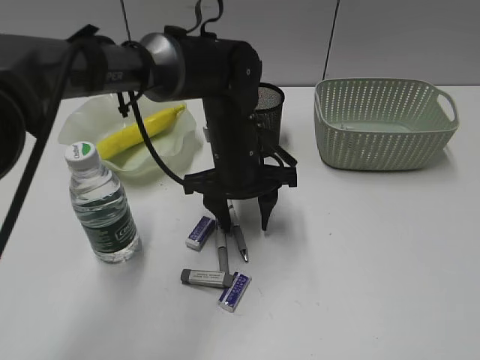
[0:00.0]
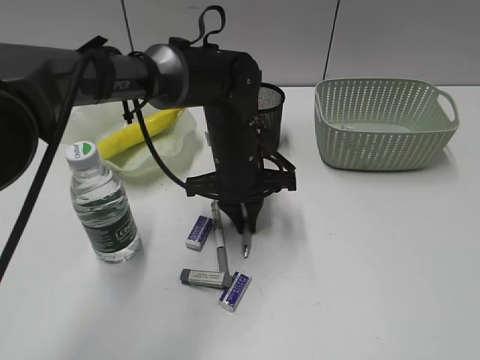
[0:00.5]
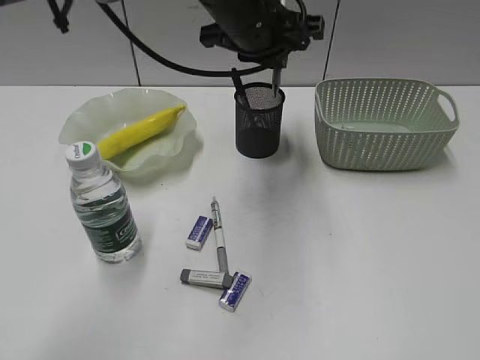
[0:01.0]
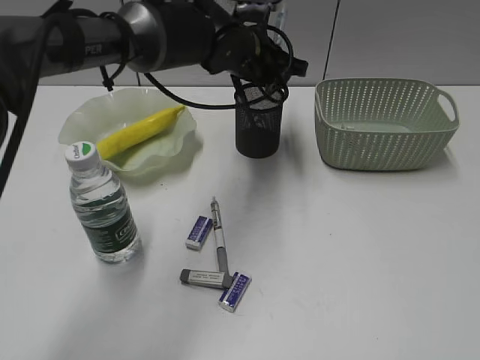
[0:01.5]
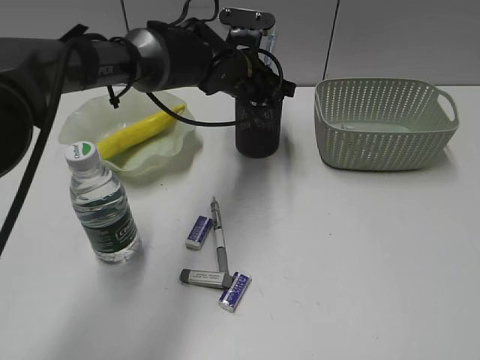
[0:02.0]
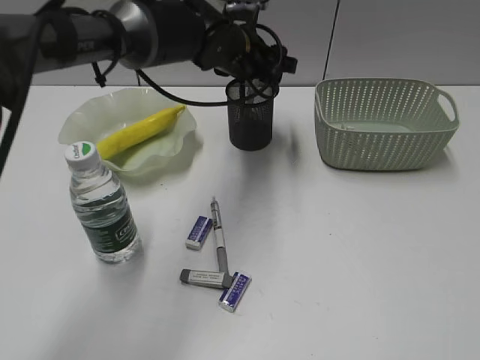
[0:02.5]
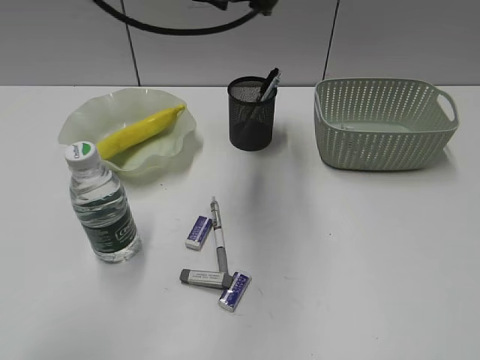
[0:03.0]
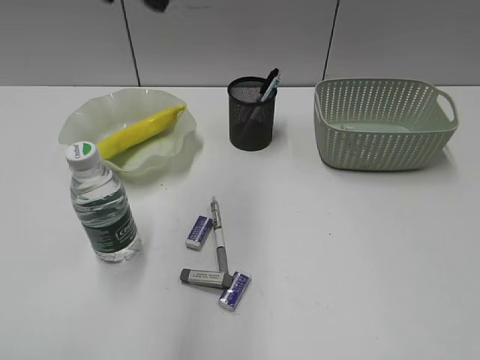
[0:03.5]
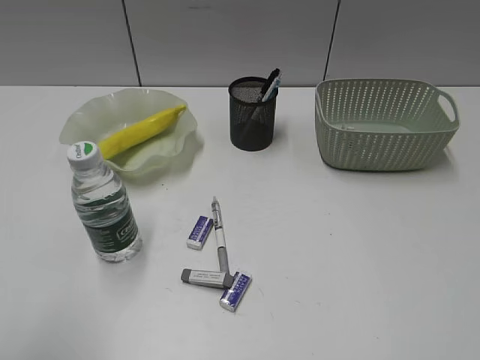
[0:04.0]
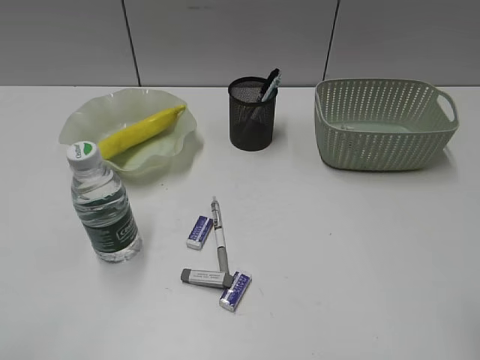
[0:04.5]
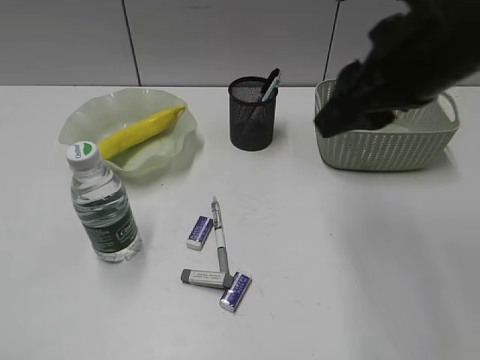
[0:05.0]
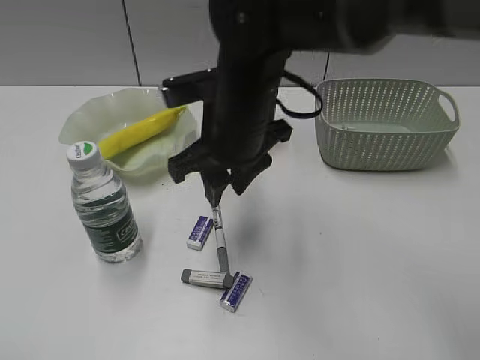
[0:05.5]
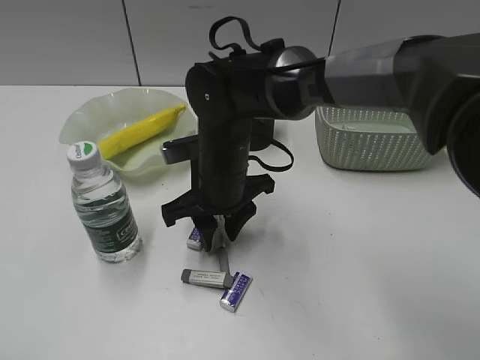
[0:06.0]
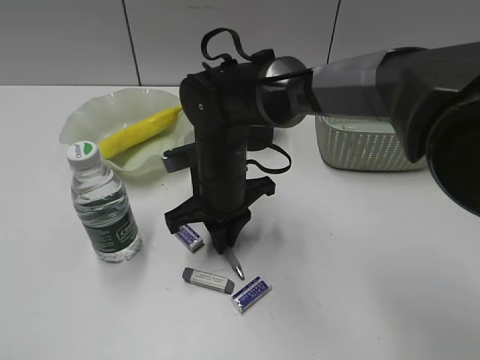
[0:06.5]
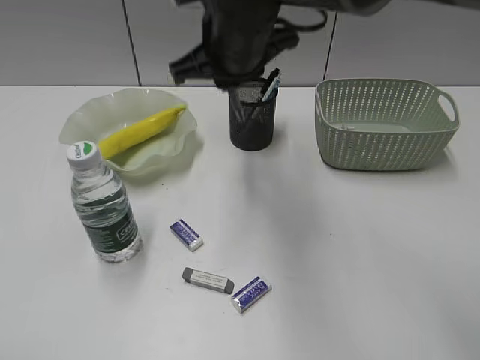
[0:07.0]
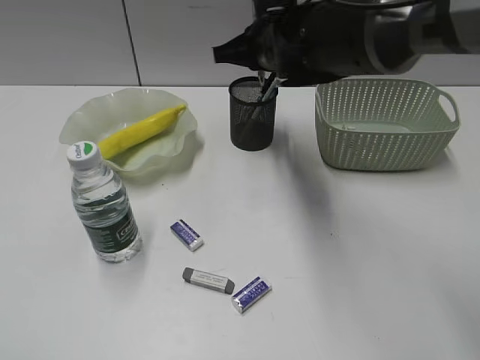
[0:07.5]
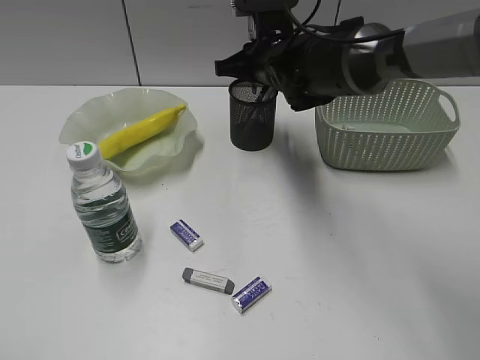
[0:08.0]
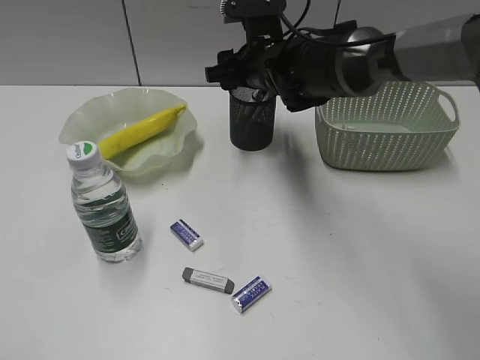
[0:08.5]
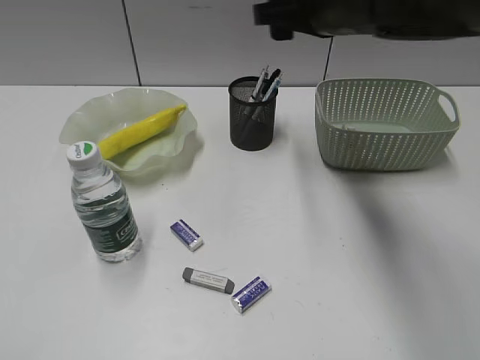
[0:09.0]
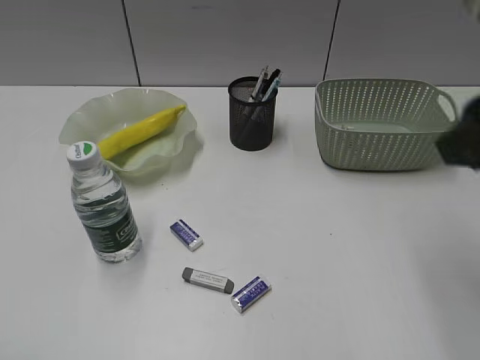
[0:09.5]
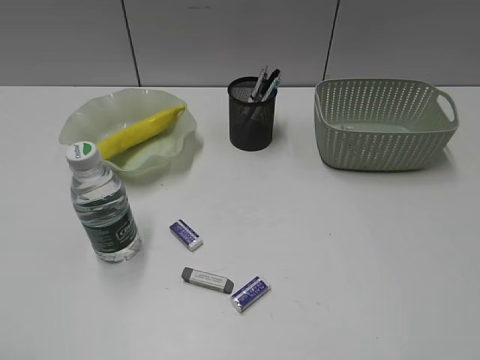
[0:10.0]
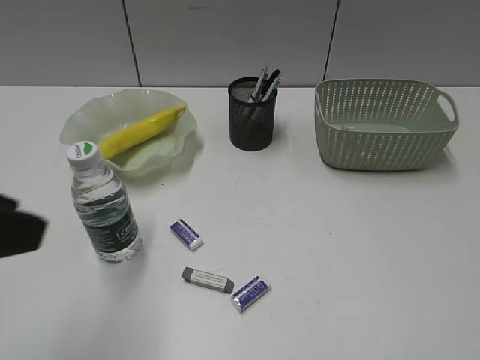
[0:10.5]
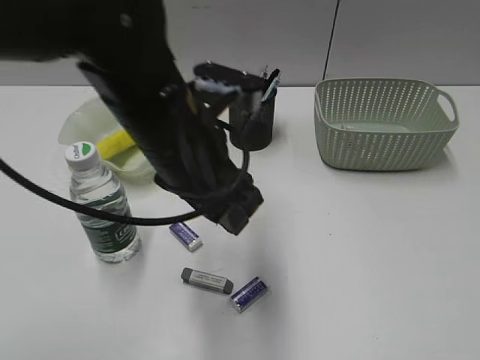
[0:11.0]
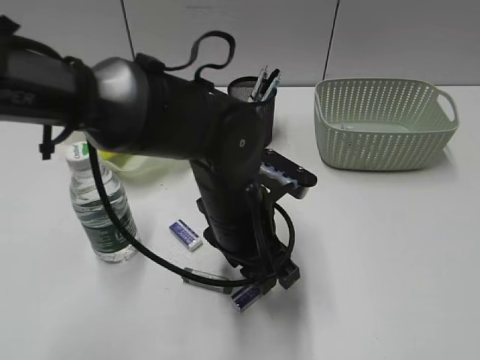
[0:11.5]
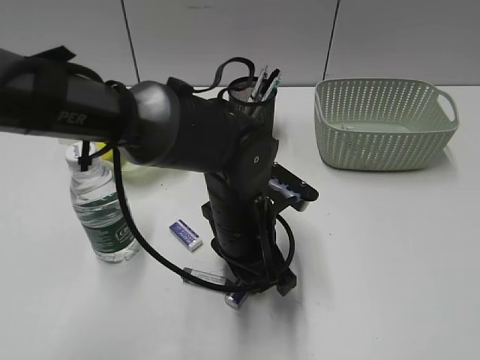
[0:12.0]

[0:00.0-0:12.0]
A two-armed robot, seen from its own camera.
Step, 0:00.5 to 0:02.5: Place the blue pen in pen holder with left gripper.
Step, 0:03.0 to 0:06.0: Grasp the gray pen with right gripper.
Step, 0:06.5 to 0:08.0: Place the gray pen in pen holder with right gripper.
0:00.0 to 0:02.0: The left gripper travels forward by some 10 cm, moves approximately 15 cm upward and comes back, and closes its fingers.
0:02.0 to 0:04.0: The left gripper shifts roughly 50 cm backward and to the left, and opens up.
0:04.0 to 0:06.0: The left gripper shifts approximately 10 cm backward and to the left, while the right gripper goes approximately 50 cm to the left, forward and downward.
0:06.0 to 0:08.0: The right gripper travels forward, to the right and upward by roughly 15 cm, and closes up.
0:08.0 to 0:10.0: The right gripper moves backward and to the right, some 50 cm, and opens its fingers.
0:10.0 to 0:12.0: The left gripper is displaced to the right, forward and downward by some 50 cm.

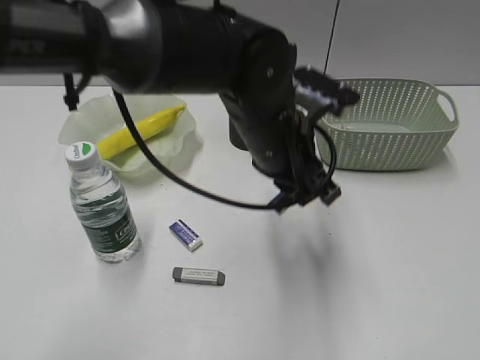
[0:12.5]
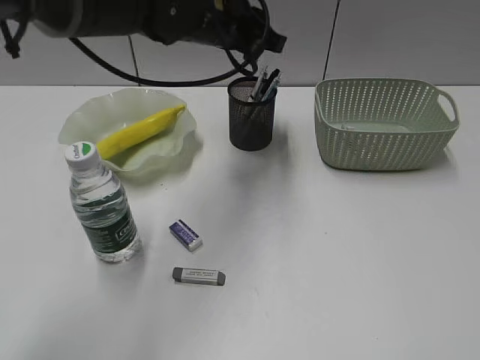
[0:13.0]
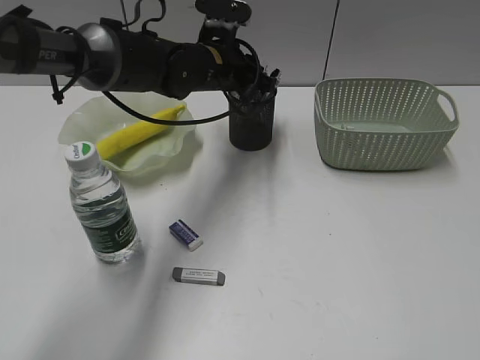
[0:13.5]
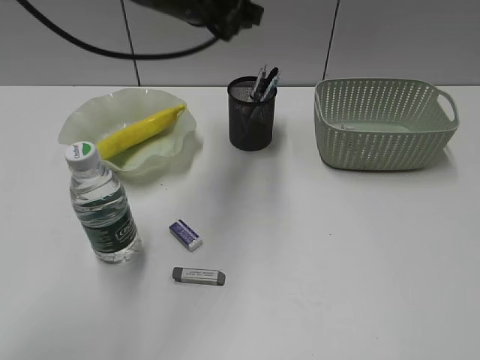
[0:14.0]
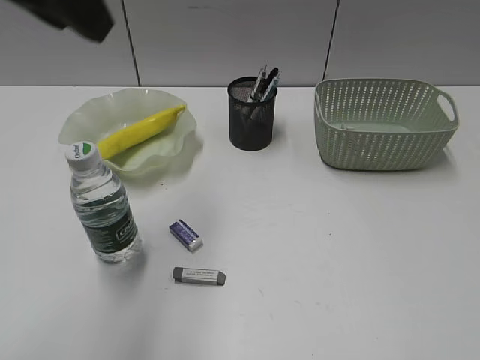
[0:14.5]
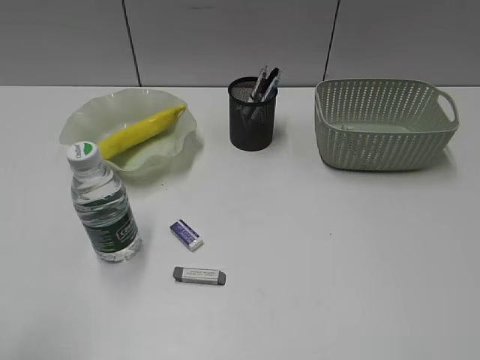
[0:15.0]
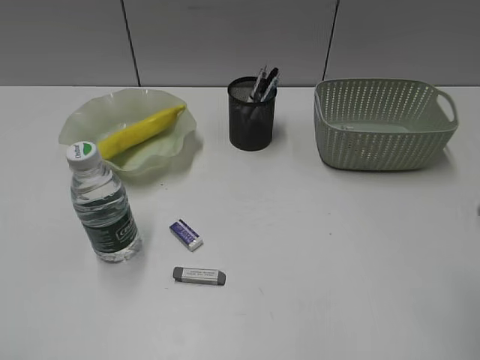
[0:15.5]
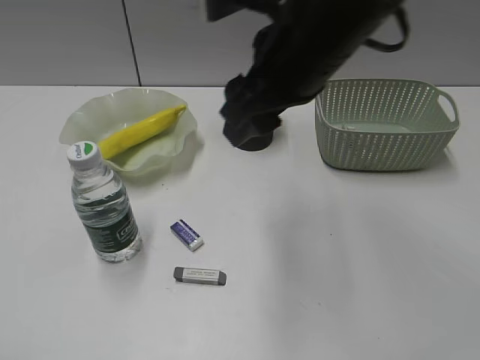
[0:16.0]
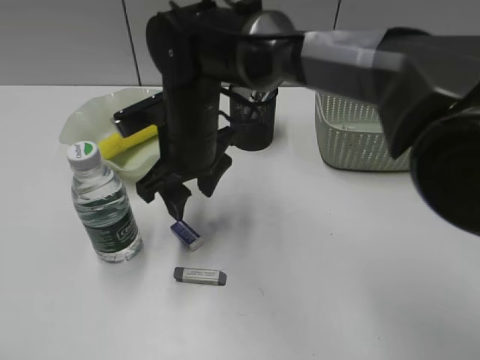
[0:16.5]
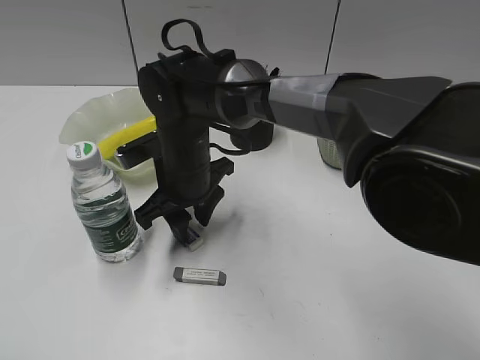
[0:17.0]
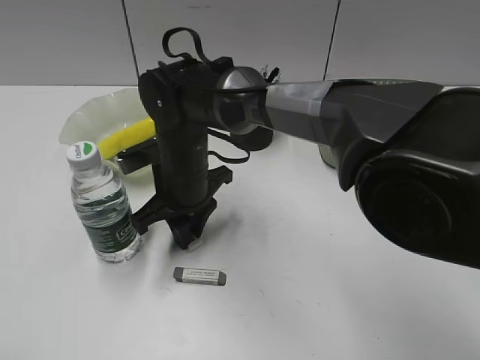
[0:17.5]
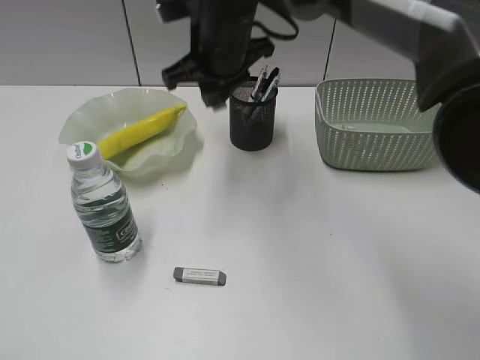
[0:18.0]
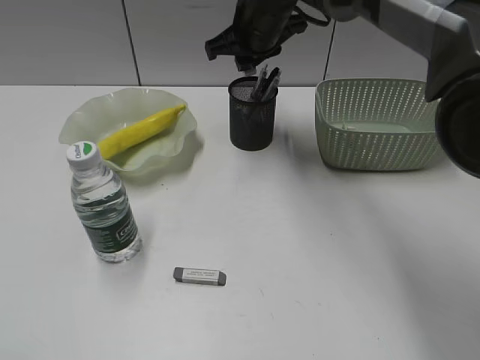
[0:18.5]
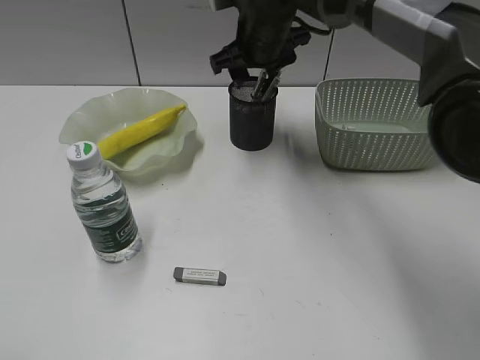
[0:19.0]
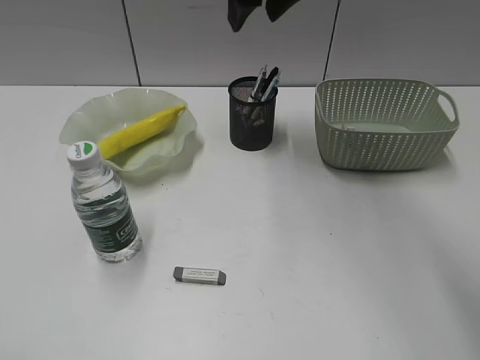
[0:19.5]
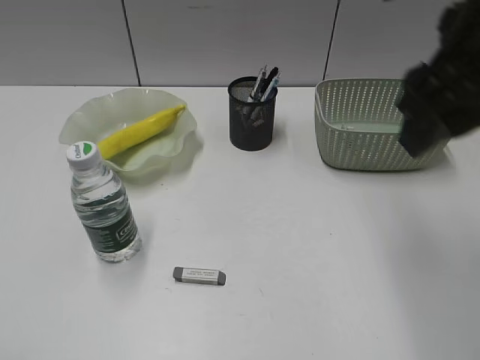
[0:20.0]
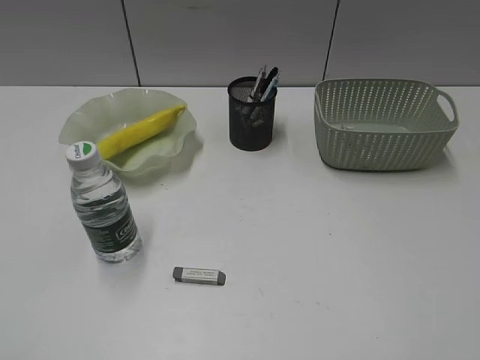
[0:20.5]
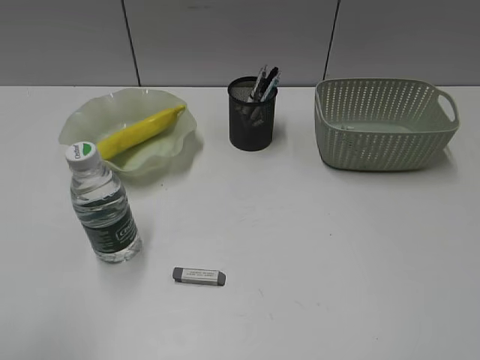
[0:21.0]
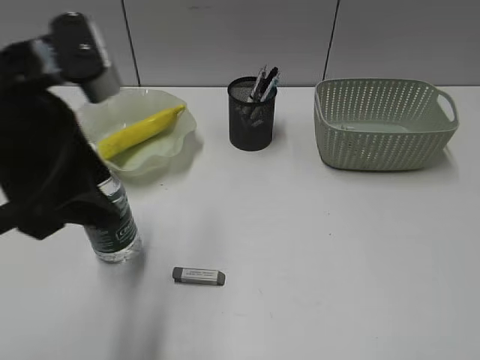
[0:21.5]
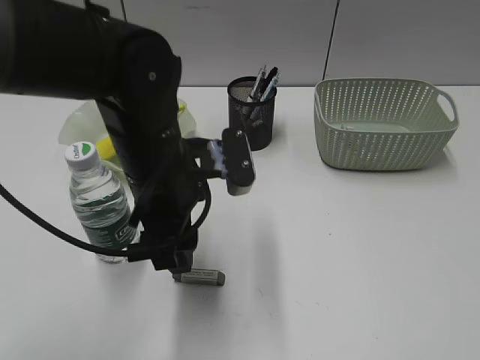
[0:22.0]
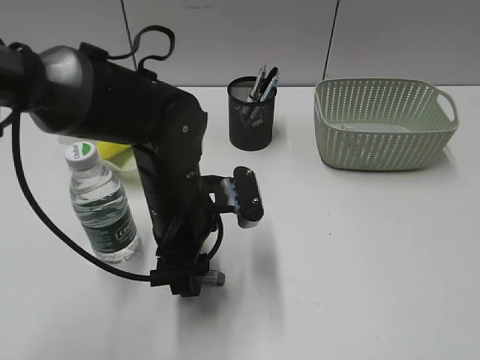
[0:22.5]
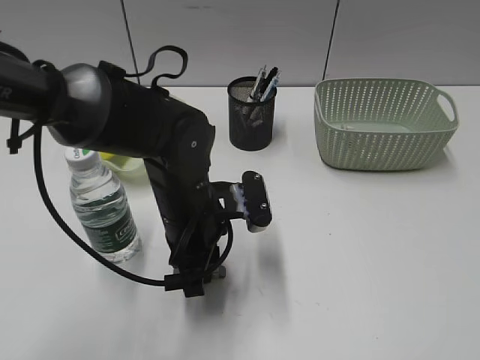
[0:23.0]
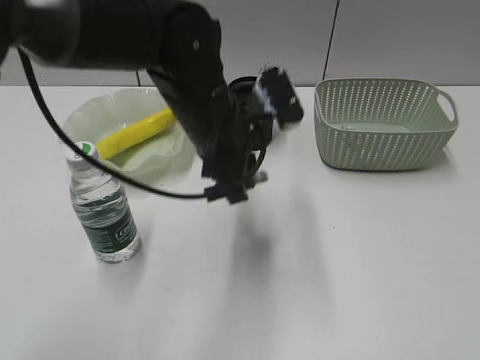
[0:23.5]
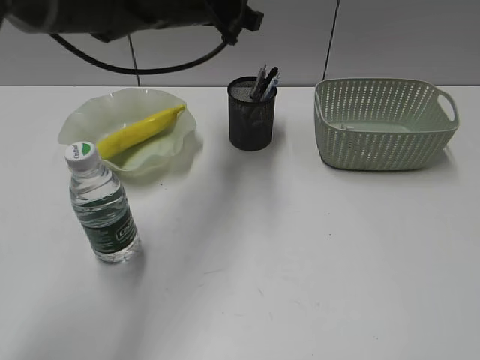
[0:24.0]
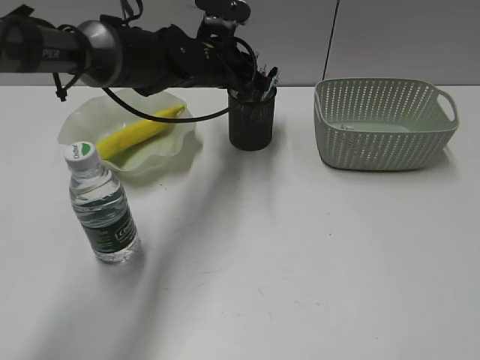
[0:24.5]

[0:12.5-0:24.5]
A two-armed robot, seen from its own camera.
Step, 0:12.5 to 0:13.5: Place the eraser in pen holder with left gripper.
Step, 0:14.0 to 0:17.5: Grasp the eraser with right gripper.
Step, 0:18.0 to 0:19.0: Place the eraser in pen holder with right gripper.
Step, 0:19.5 to 0:23.0: Grasp the eraser with left gripper.
0:12.5 to 0:14.5: The left gripper goes up and down, approximately 20 cm each way, reversing 2 times, and opens.
0:14.5 to 0:16.5: The right gripper moves to the left and forward, about 50 cm, while the left gripper heads backward, to the left and downward, covering about 35 cm.
0:16.5 to 0:18.5: The right gripper goes roughly 15 cm forward, to the right and upward, and closes its fingers.
0:18.5 to 0:20.5: The right gripper shifts about 50 cm backward and to the right, and opens up.
0:20.5 to 0:22.5: The right gripper shifts roughly 5 cm backward; the left gripper moves forward, to the right and downward, roughly 40 cm.
0:22.5 to 0:24.5: The left gripper goes some 20 cm forward, and closes.

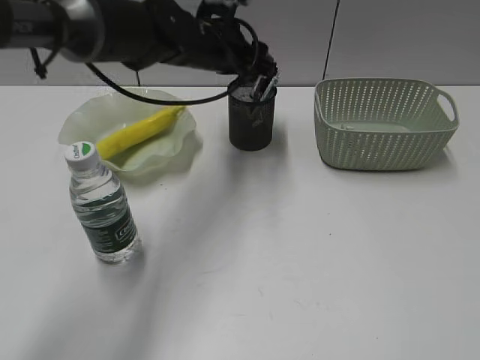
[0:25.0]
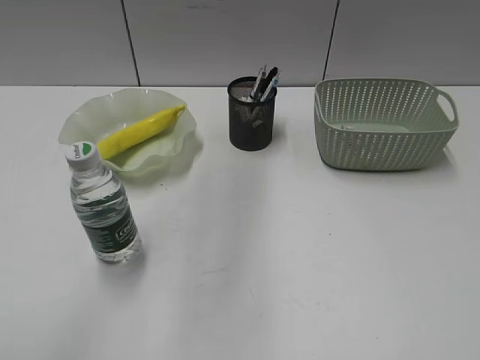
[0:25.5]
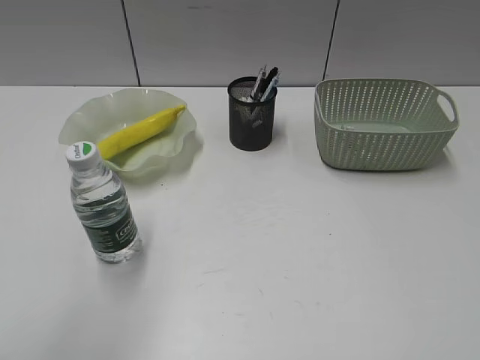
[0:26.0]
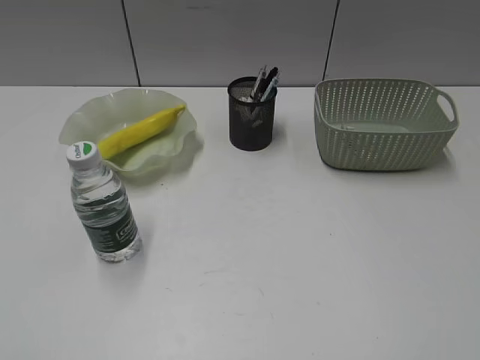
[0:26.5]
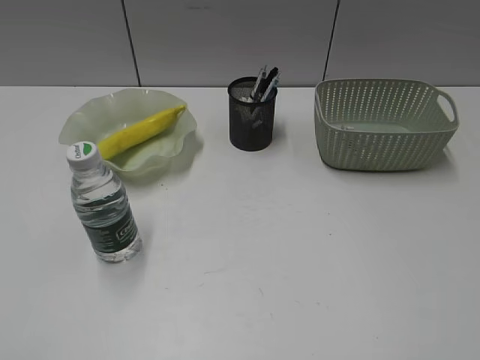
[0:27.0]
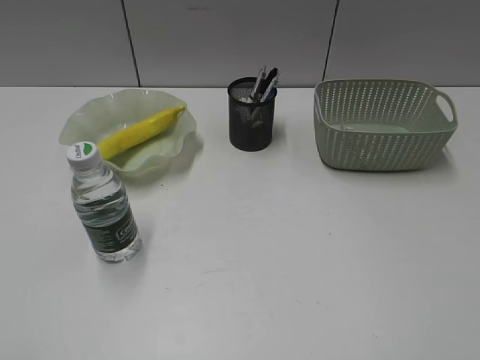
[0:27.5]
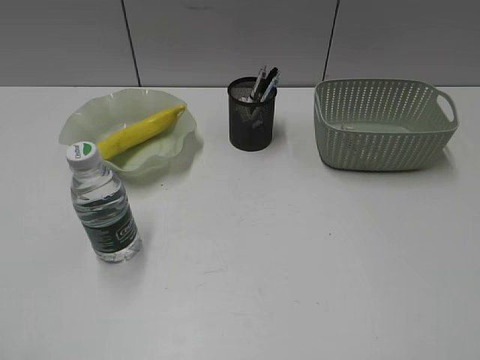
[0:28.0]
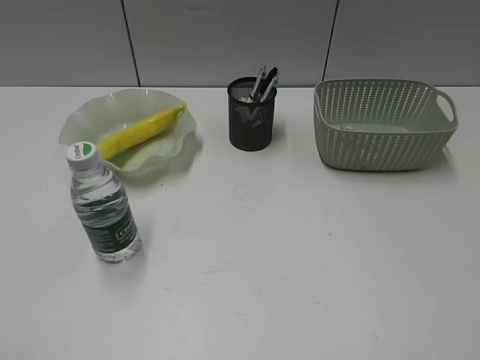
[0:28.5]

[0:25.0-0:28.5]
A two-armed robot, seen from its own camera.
0:25.0 to 0:27.0: The left gripper is displaced backward and to the left by some 50 cm.
